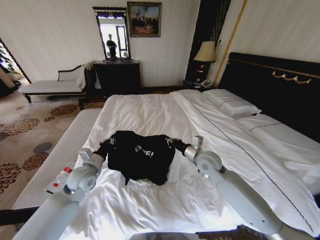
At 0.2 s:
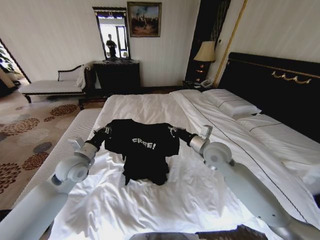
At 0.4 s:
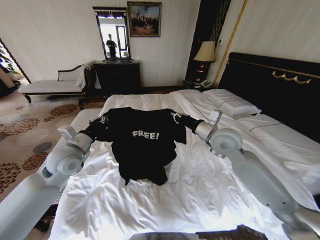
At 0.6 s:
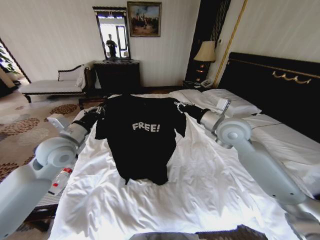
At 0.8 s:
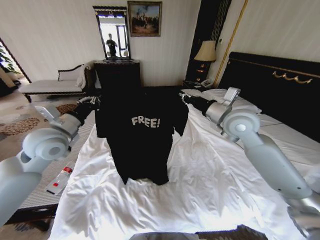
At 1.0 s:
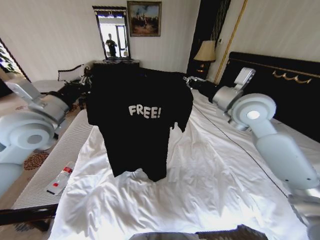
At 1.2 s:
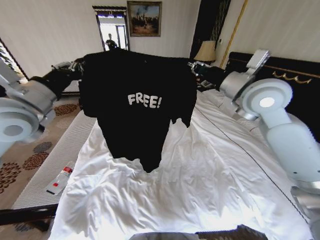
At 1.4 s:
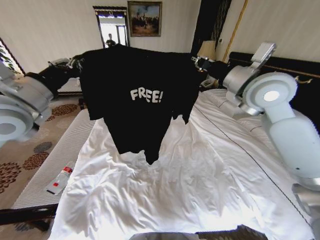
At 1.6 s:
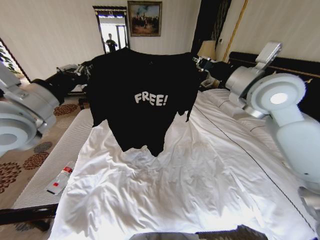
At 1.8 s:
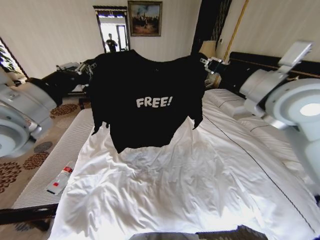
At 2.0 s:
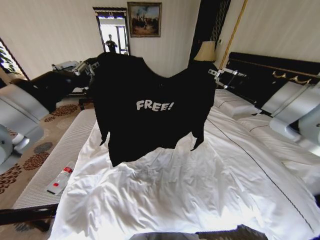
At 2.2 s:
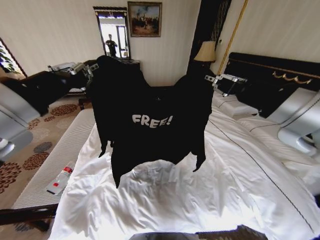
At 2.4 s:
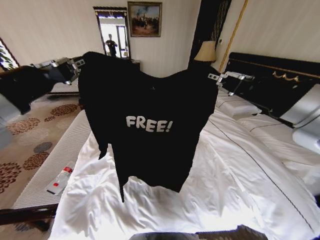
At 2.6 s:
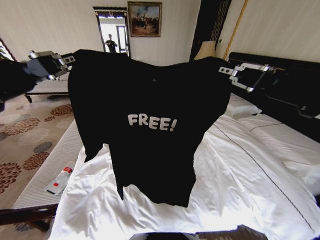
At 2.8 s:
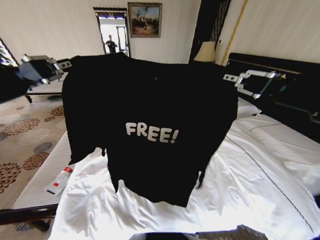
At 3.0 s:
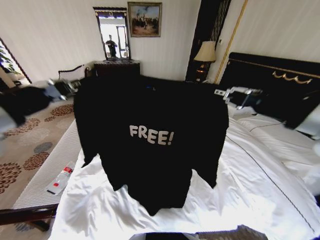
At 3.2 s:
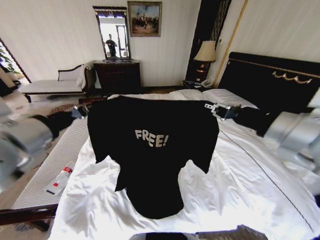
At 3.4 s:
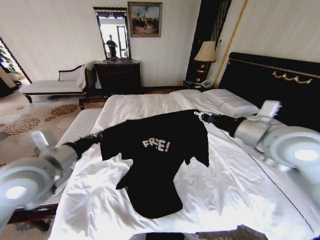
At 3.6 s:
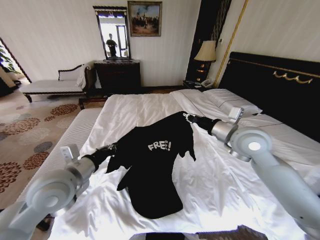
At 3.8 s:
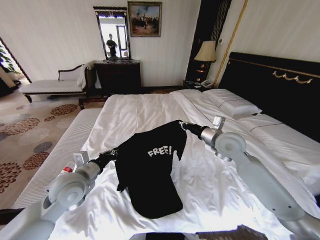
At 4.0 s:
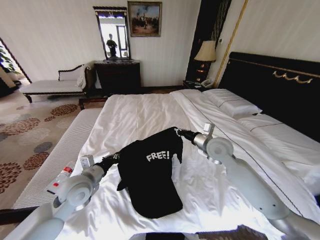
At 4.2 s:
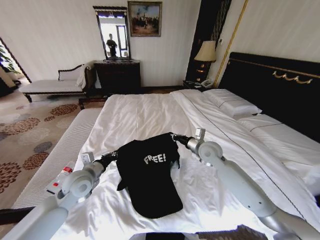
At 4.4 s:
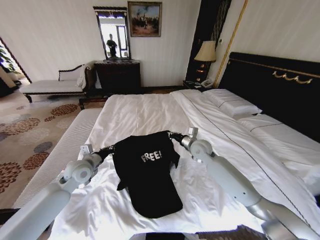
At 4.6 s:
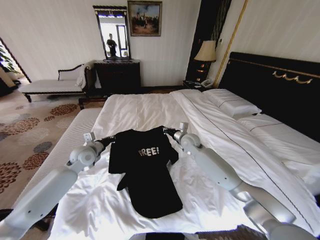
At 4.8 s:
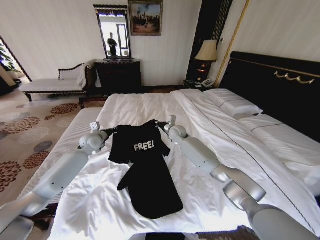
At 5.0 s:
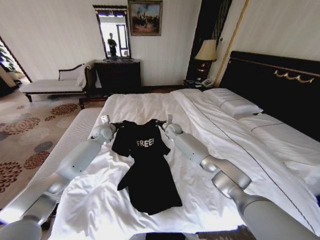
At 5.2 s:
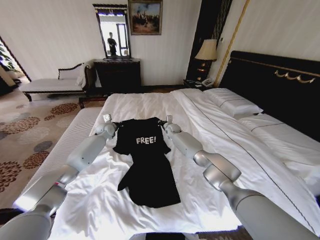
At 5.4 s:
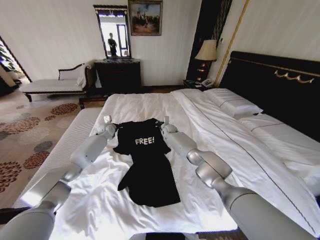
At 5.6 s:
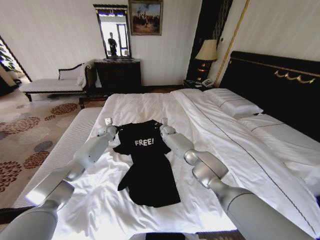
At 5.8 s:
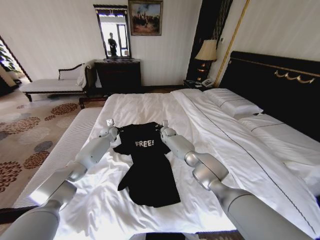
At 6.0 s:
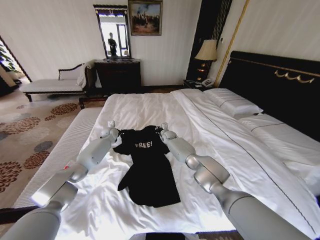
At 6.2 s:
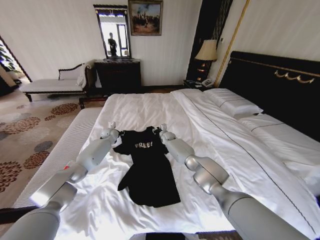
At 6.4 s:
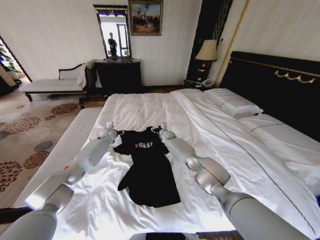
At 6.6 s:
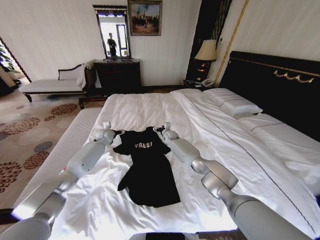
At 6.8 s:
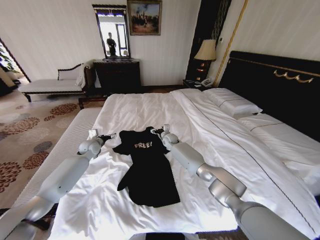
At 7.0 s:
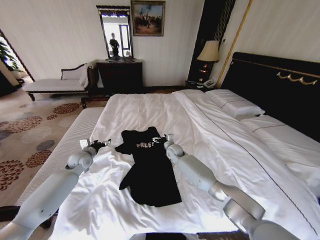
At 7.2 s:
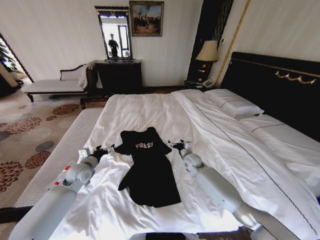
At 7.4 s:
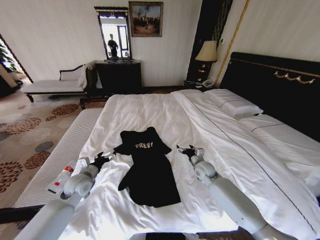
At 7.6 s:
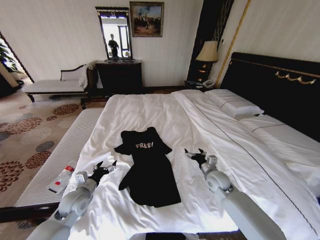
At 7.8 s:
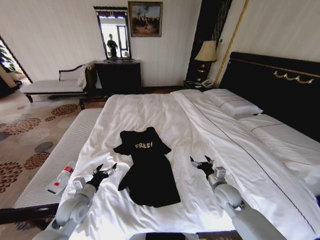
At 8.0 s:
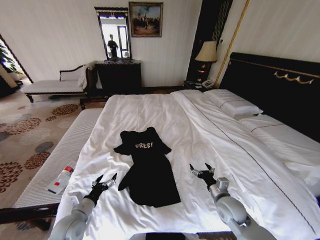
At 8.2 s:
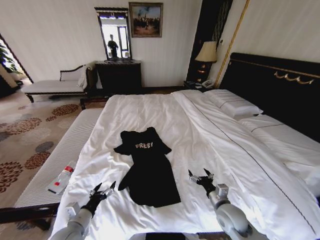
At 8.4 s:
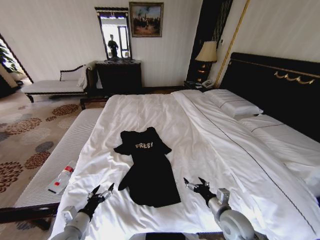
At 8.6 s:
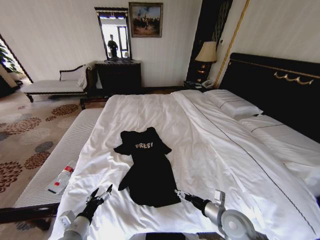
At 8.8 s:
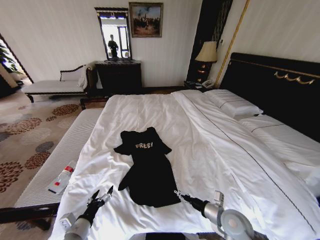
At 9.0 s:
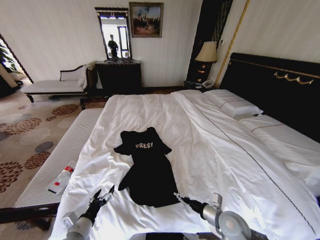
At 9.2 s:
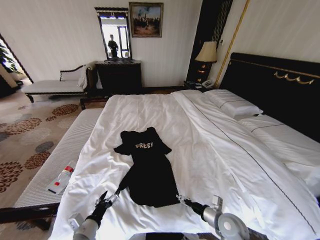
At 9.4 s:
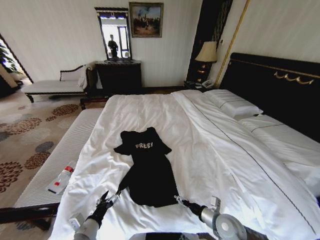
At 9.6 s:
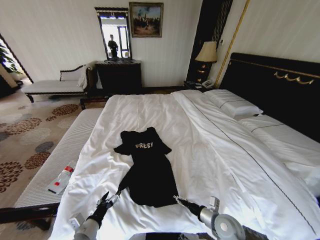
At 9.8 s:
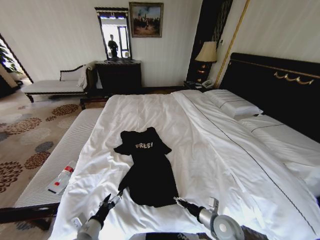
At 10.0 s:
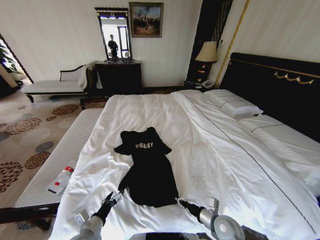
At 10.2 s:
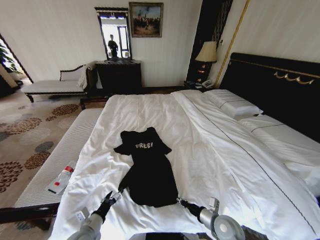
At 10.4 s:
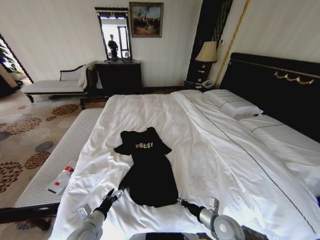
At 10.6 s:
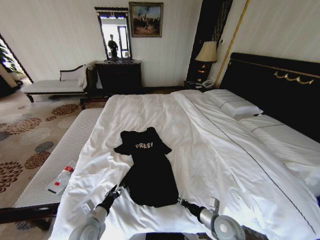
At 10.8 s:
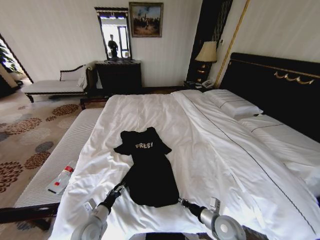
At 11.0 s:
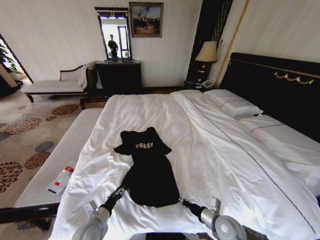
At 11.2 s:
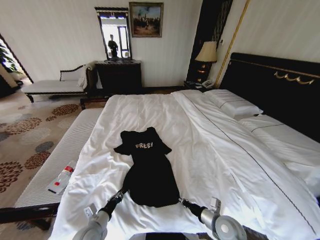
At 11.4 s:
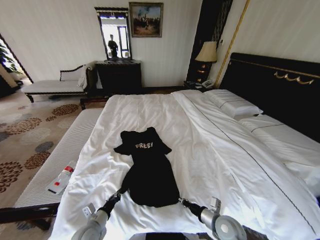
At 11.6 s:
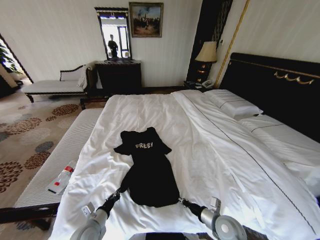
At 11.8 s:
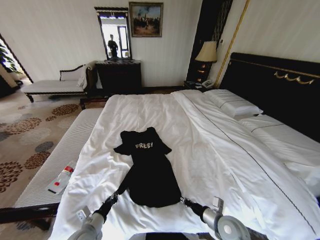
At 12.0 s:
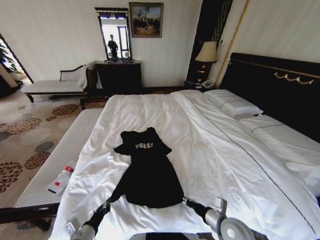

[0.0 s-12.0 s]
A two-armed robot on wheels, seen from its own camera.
Task of the whole recording: Fold the clothes on the bed.
0.0 to 1.6 s: The two grippers go some 30 cm upward.
1.6 to 3.0 s: The right gripper goes approximately 20 cm backward, while the left gripper travels backward by some 10 cm.
3.0 to 4.4 s: Both grippers travel together downward and forward, approximately 40 cm.
4.4 to 6.0 s: The left gripper travels forward by roughly 30 cm. The right gripper moves forward, downward and to the left, about 25 cm.
6.0 to 7.6 s: The left gripper is displaced backward by approximately 35 cm, and opens its fingers, while the right gripper shifts about 35 cm backward and to the right, and opens.
7.6 to 9.0 s: The grippers both shift backward by about 15 cm.
9.0 to 10.4 s: The right gripper closes its fingers.
10.4 to 12.0 s: The left gripper closes its fingers.

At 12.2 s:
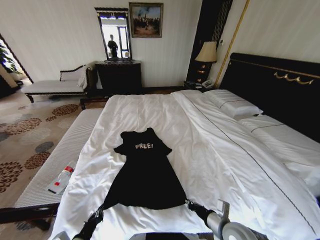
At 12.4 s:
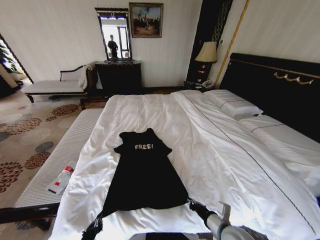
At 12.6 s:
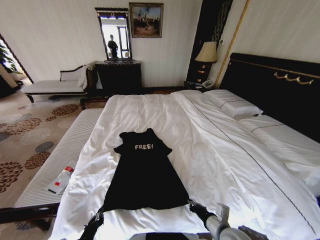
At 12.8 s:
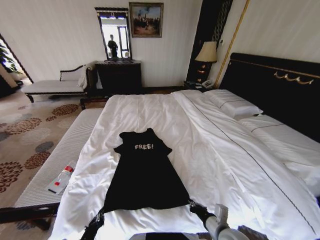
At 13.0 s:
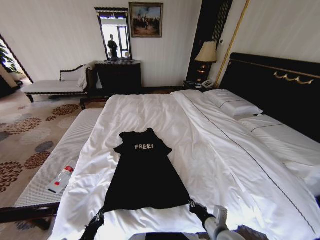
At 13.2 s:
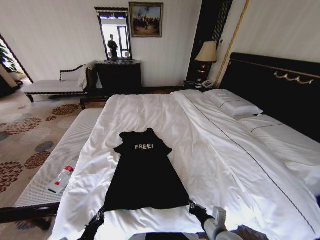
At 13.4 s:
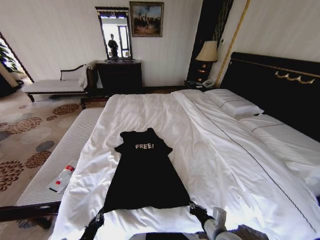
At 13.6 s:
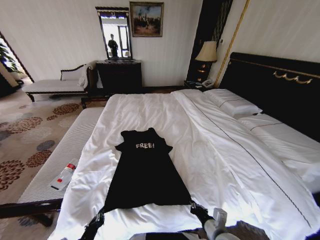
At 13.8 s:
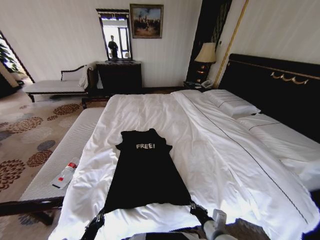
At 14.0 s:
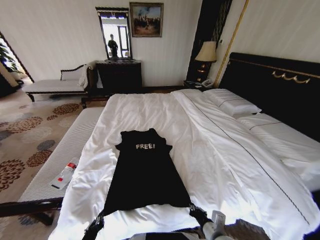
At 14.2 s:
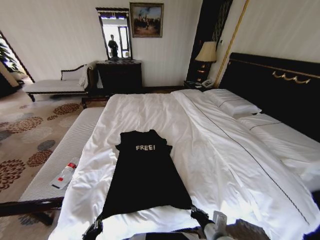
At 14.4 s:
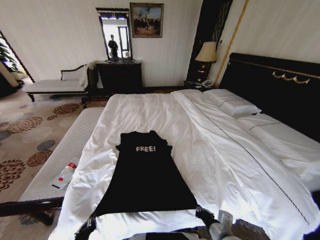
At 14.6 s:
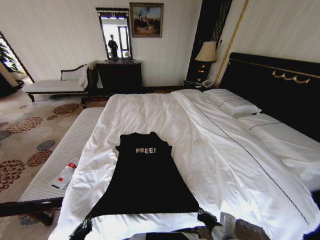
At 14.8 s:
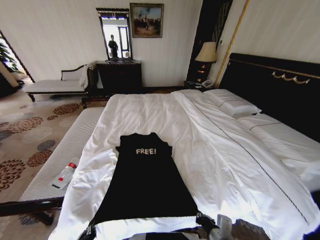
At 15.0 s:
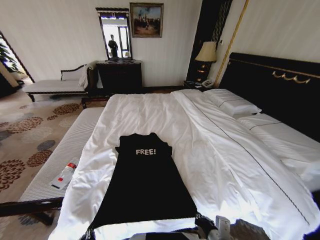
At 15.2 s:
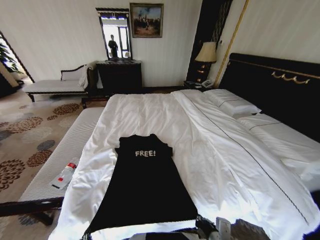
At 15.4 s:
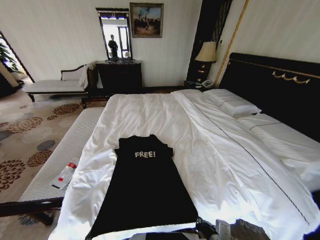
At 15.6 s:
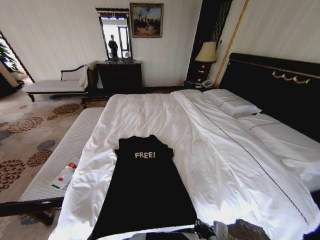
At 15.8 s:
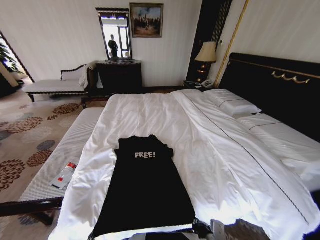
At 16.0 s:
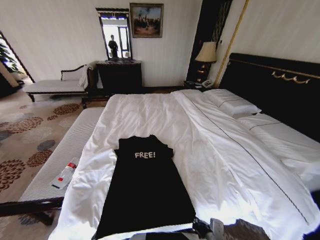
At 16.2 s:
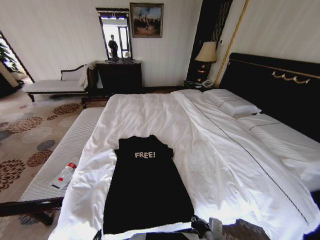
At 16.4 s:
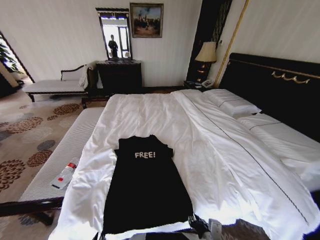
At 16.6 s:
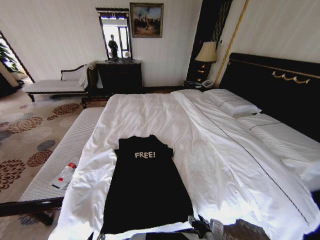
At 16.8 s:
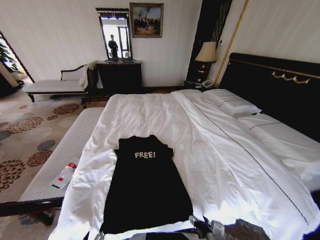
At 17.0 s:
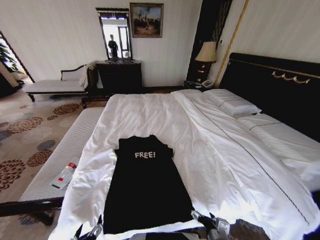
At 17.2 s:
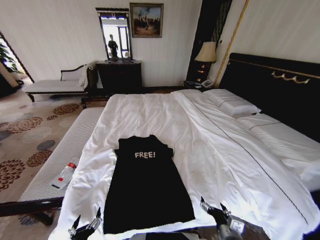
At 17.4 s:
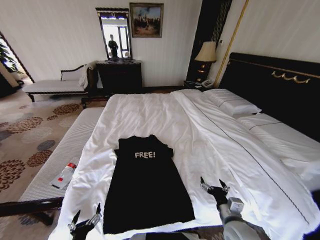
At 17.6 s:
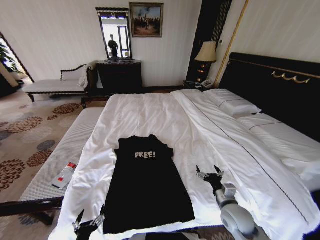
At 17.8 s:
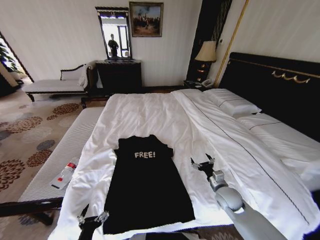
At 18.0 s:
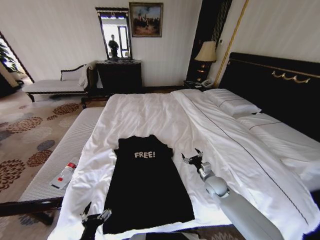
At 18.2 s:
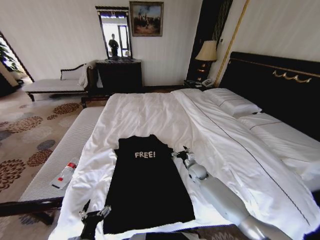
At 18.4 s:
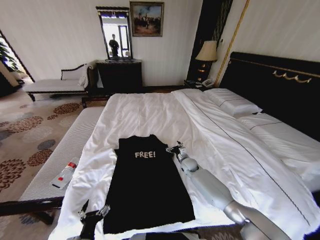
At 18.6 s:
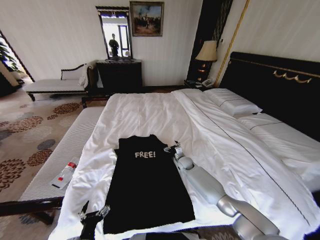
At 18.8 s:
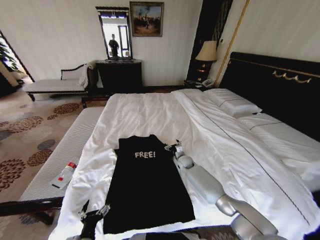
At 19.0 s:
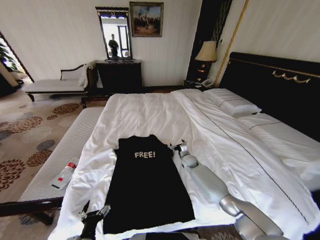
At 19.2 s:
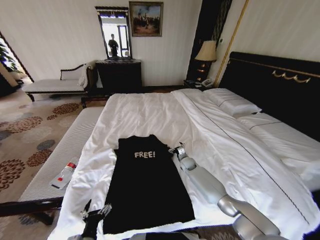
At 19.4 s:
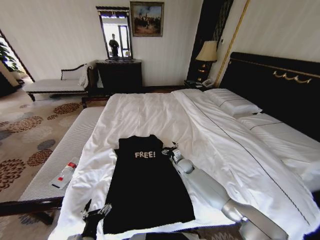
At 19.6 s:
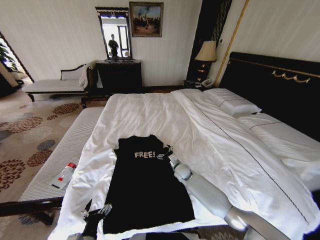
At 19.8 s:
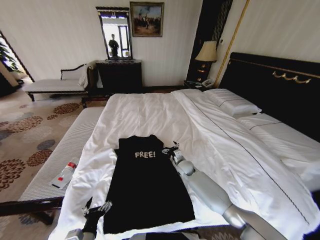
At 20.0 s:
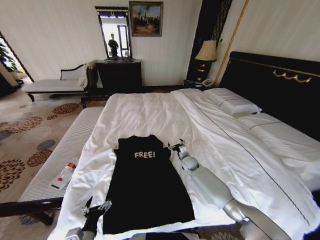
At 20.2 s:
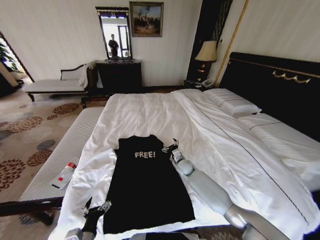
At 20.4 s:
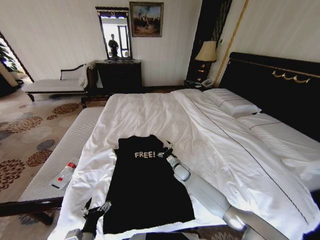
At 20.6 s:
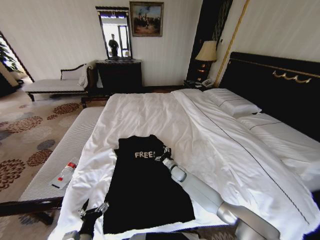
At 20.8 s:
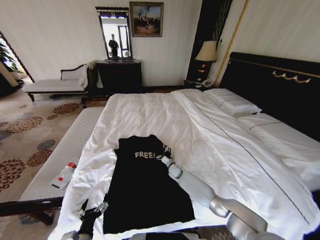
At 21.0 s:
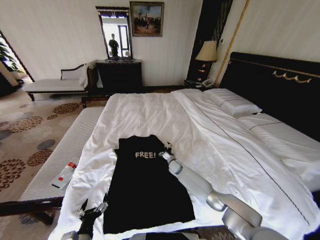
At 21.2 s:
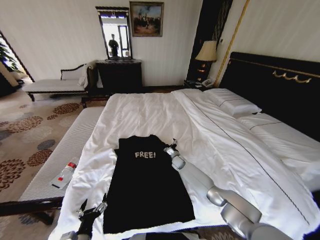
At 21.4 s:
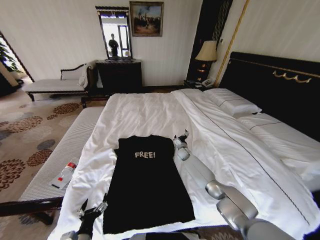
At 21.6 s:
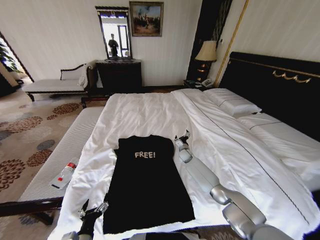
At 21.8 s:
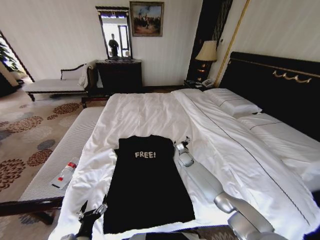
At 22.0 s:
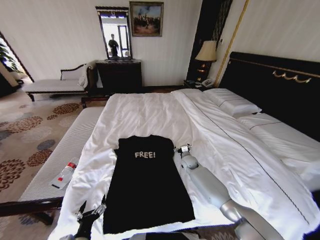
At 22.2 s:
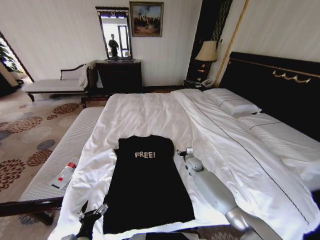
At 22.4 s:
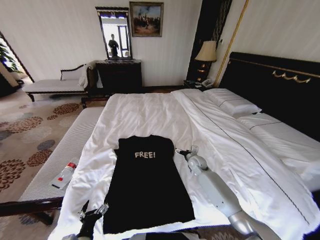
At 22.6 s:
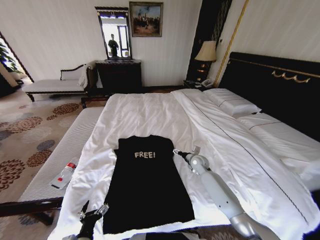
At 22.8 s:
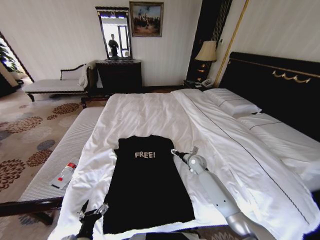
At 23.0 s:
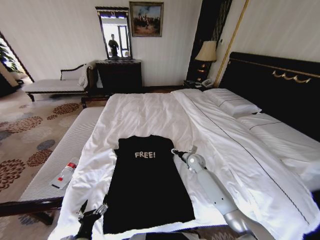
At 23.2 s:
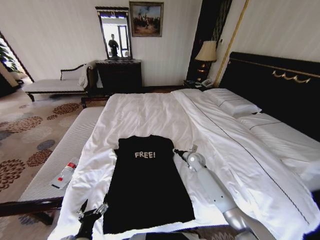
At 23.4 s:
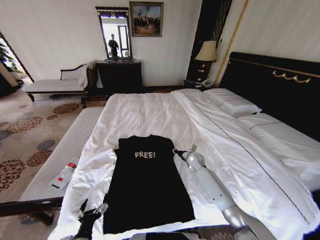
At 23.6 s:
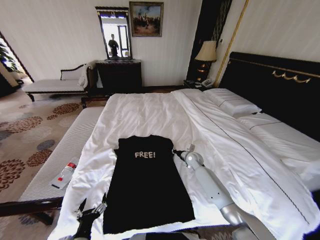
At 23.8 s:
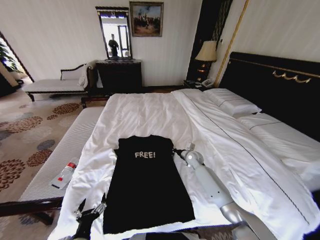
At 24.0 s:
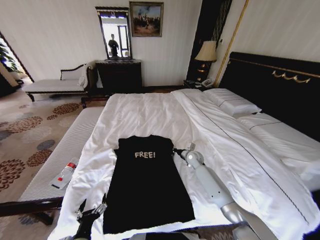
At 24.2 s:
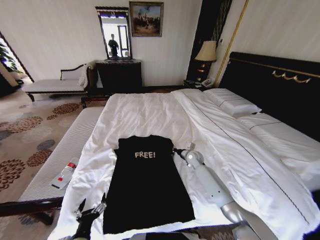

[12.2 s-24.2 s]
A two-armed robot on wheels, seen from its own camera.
Task of the whole recording: Fold the clothes on the bed.
12.2 to 13.8 s: The right gripper shifts by some 5 cm.
13.8 to 15.2 s: The left gripper is displaced backward by about 5 cm.
15.2 to 16.6 s: The left gripper opens up, while the right gripper opens its fingers.
16.6 to 18.2 s: The left gripper goes roughly 5 cm forward, and opens its fingers; the right gripper heads forward, covering approximately 30 cm, and opens.
18.2 to 19.8 s: The right gripper is displaced to the left by some 5 cm.
19.8 to 21.2 s: The right gripper travels forward by roughly 5 cm.
21.2 to 22.6 s: The right gripper shifts about 15 cm upward, to the right and backward.
22.6 to 24.2 s: The right gripper closes up.
